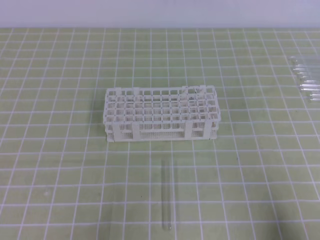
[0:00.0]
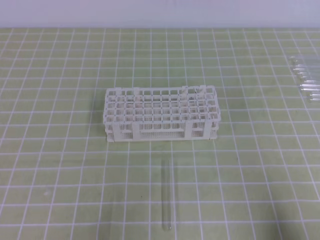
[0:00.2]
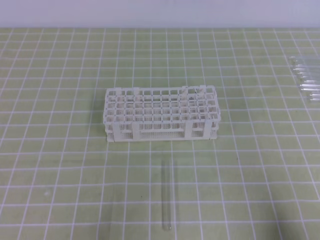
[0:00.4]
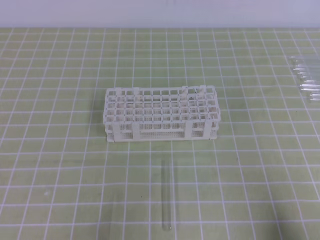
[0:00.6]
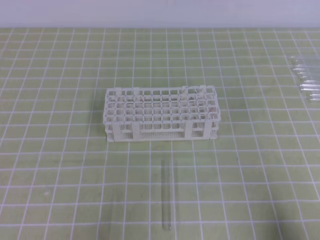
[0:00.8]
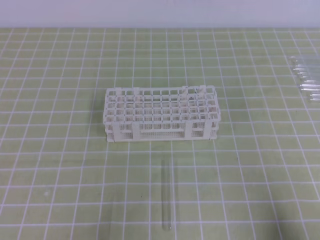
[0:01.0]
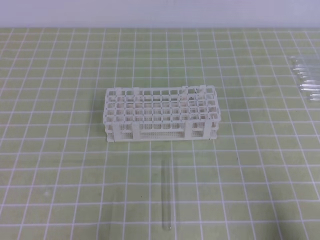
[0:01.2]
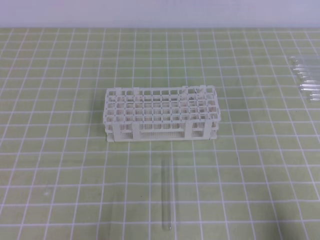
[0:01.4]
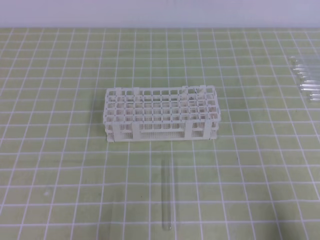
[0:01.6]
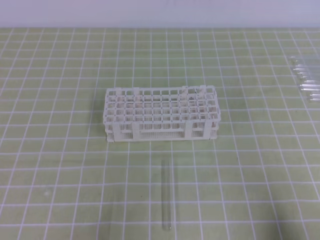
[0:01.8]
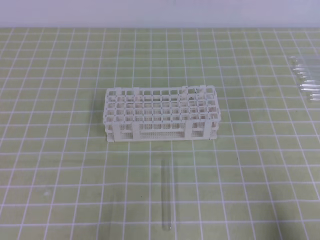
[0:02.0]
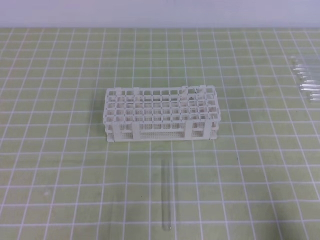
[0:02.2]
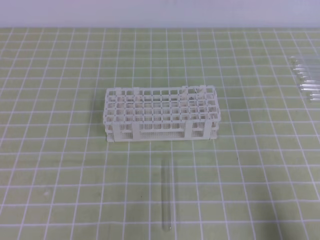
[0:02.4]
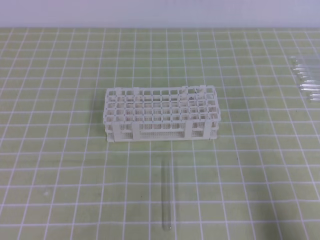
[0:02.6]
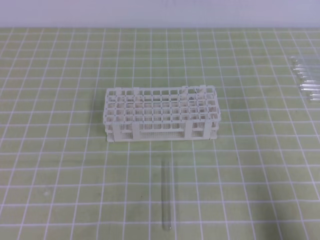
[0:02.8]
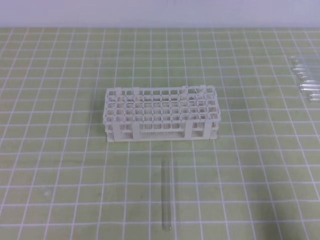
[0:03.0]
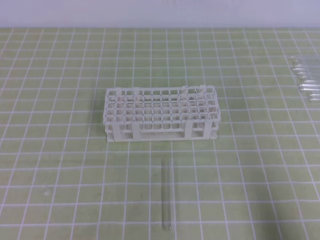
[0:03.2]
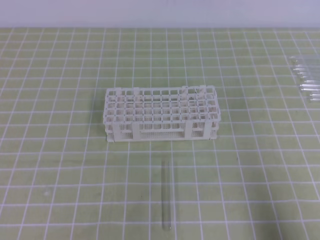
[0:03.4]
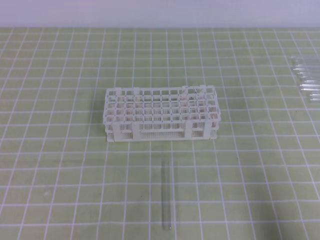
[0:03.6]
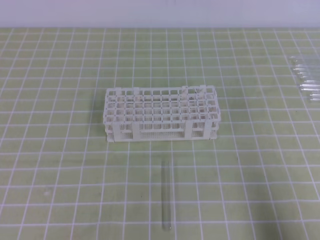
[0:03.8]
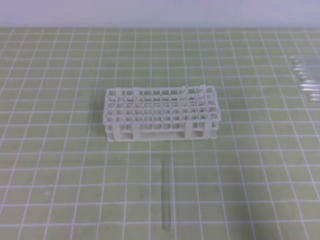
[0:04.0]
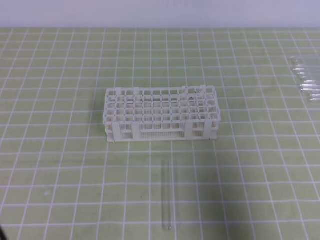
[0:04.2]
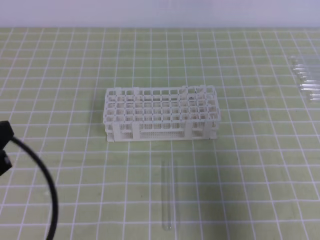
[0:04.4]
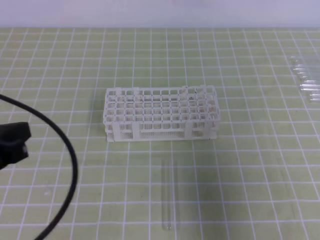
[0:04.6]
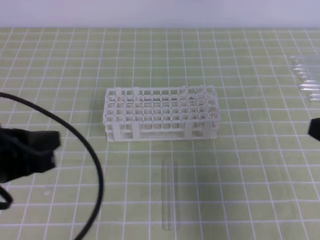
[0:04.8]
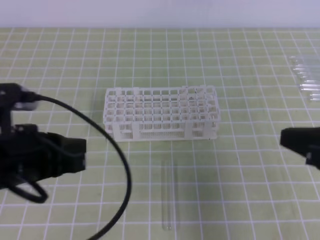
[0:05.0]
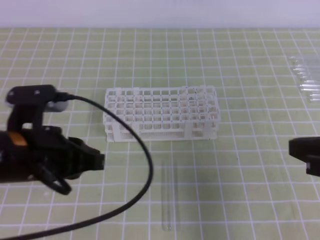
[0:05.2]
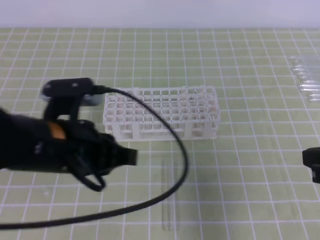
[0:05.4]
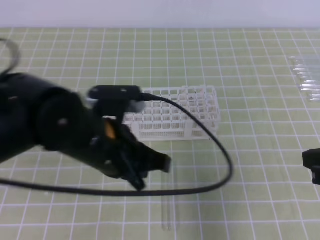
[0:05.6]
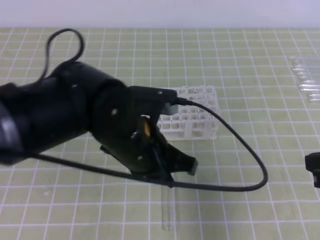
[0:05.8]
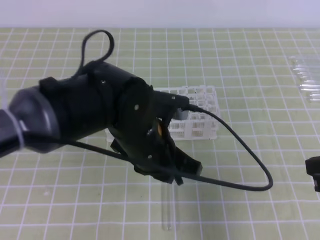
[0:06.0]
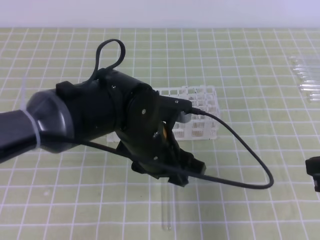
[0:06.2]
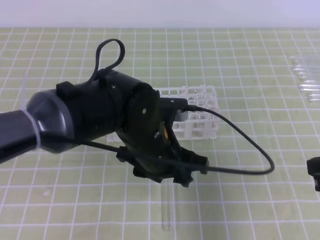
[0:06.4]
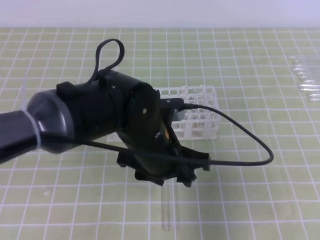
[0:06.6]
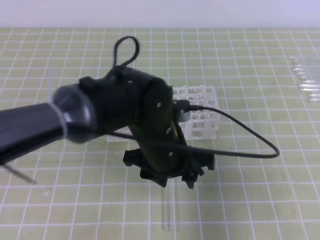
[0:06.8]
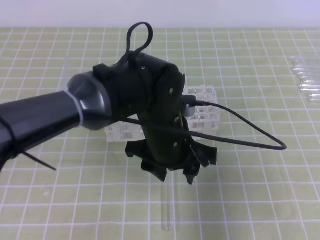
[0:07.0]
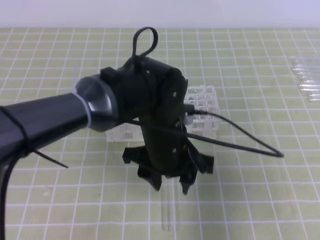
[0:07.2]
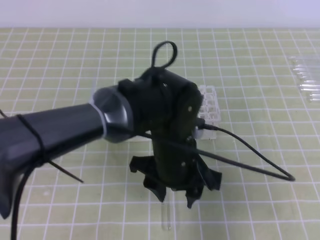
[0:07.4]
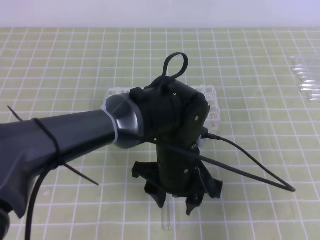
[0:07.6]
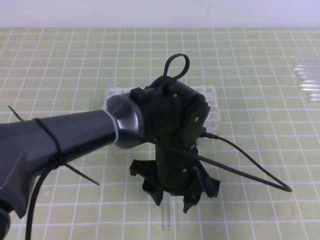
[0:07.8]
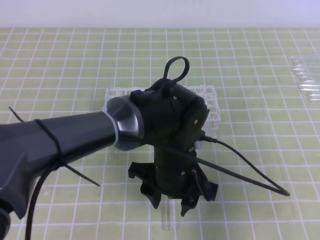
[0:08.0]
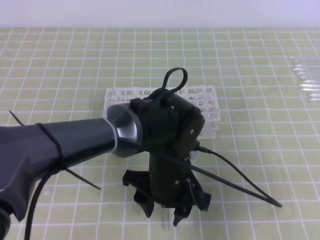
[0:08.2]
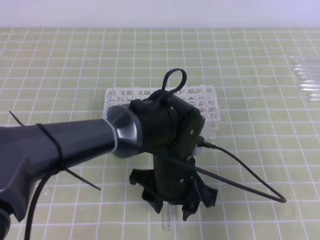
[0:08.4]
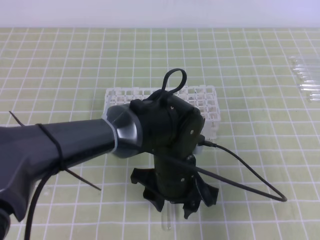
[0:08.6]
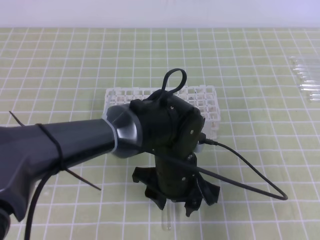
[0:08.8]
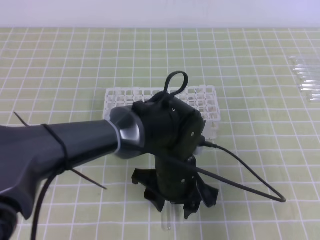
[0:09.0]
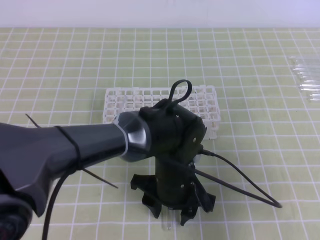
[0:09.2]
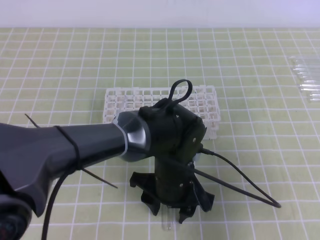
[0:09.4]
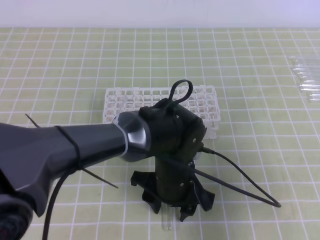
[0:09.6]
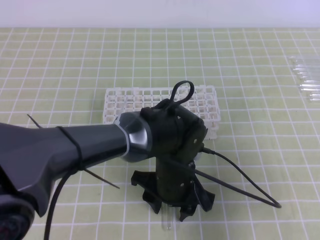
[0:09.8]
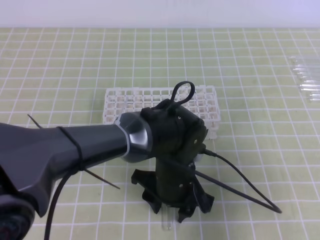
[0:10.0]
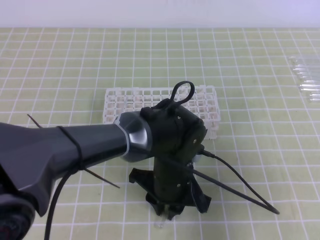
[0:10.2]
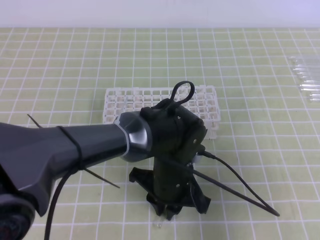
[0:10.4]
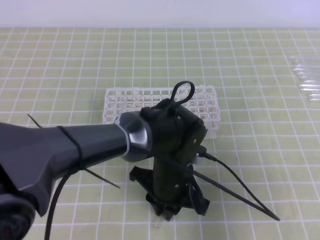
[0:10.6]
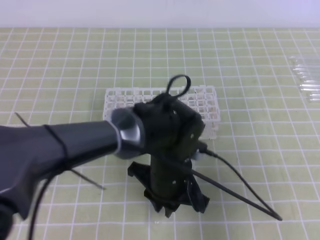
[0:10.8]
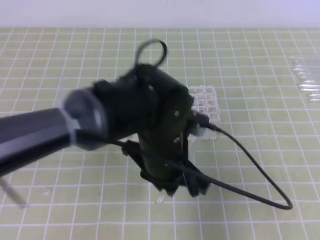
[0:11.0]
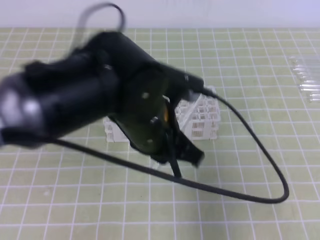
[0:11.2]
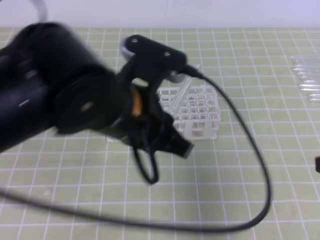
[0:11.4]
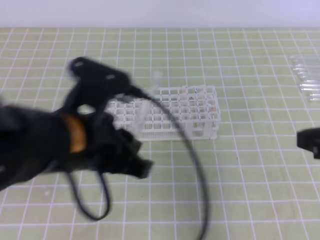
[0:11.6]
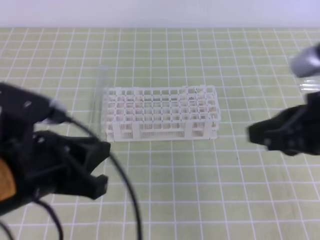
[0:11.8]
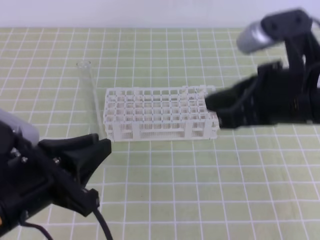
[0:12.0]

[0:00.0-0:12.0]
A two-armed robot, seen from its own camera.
0:00.0 to 0:01.6: The two grippers keep their place.
0:03.0 to 0:04.4: The left gripper goes about 10 cm upward and forward; the right gripper heads upward, covering some 10 cm.
0:04.4 to 0:06.0: The left gripper goes some 25 cm to the right and forward, and opens up; the right gripper goes roughly 5 cm forward.
0:06.0 to 0:07.6: The left gripper shifts by some 5 cm, and opens its fingers.
0:07.6 to 0:09.0: There are only small adjustments of the grippers.
0:09.0 to 0:10.4: The left gripper closes.
0:10.4 to 0:12.0: The left gripper heads to the left, upward and backward, covering some 25 cm; the right gripper heads to the left and upward, covering approximately 15 cm.

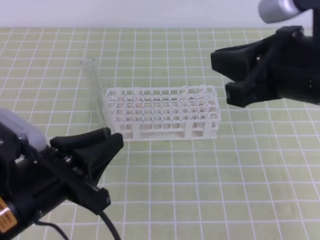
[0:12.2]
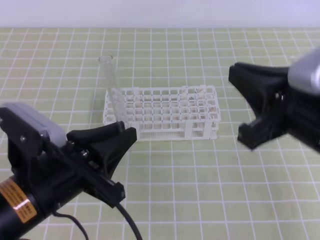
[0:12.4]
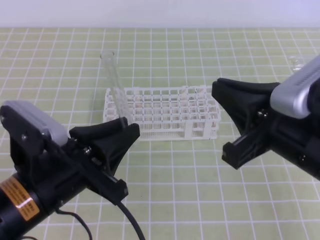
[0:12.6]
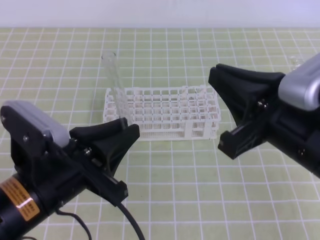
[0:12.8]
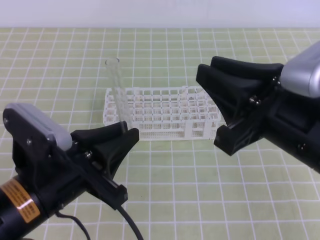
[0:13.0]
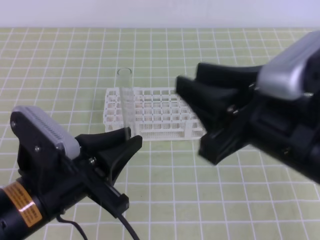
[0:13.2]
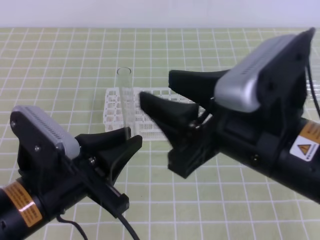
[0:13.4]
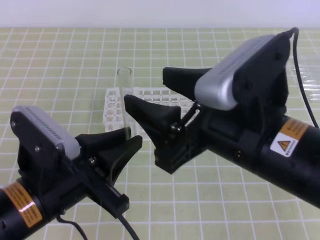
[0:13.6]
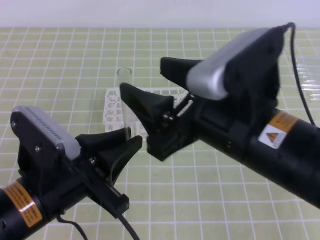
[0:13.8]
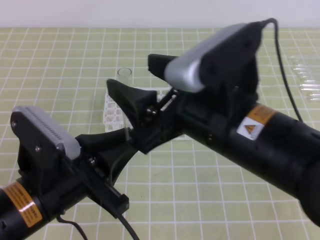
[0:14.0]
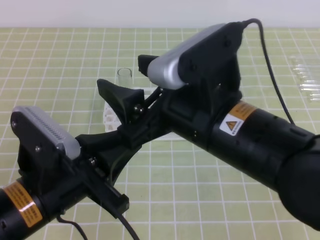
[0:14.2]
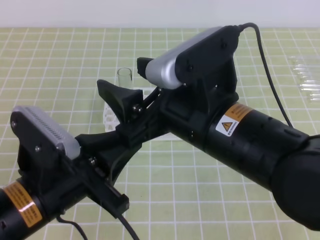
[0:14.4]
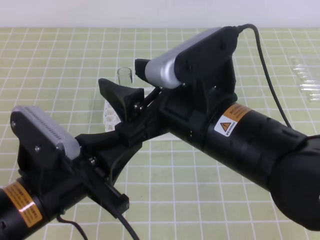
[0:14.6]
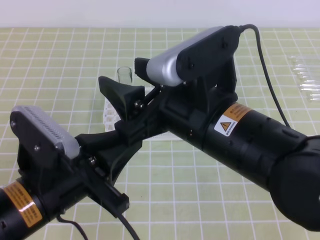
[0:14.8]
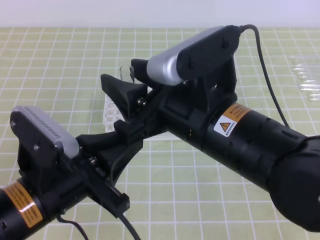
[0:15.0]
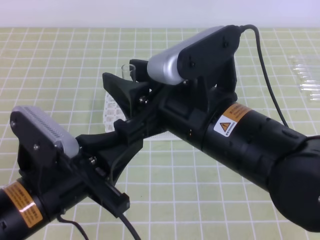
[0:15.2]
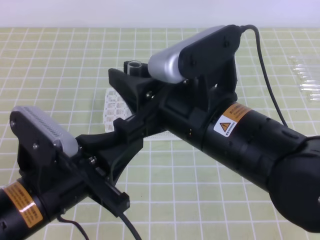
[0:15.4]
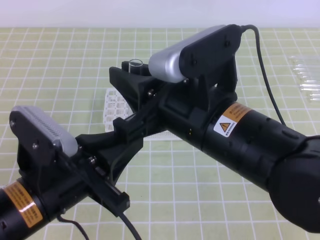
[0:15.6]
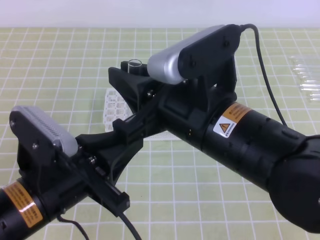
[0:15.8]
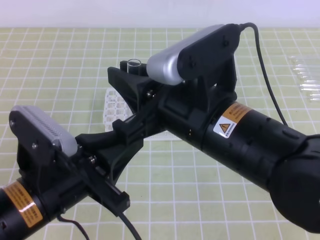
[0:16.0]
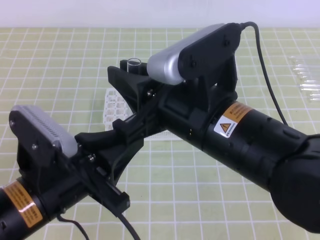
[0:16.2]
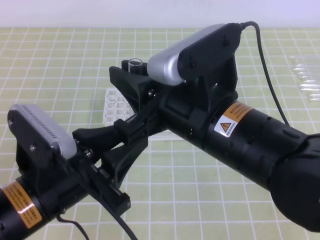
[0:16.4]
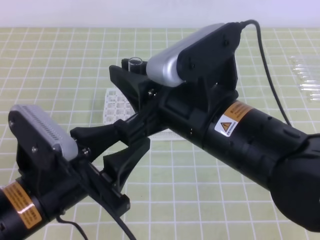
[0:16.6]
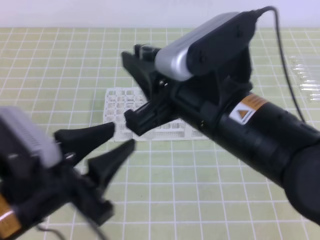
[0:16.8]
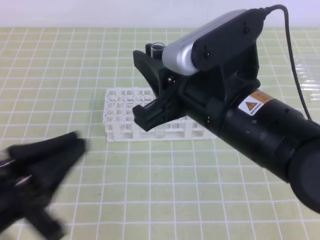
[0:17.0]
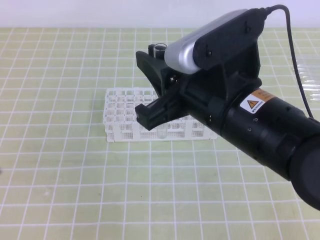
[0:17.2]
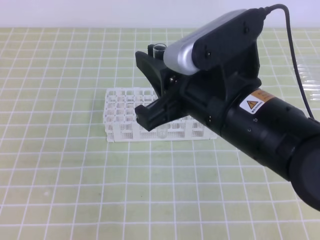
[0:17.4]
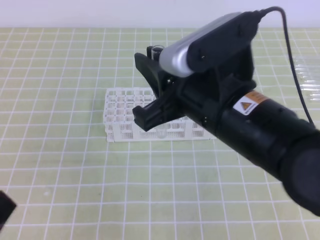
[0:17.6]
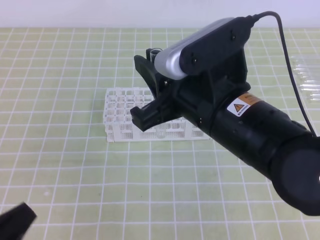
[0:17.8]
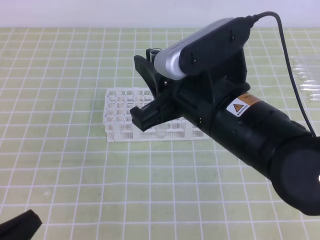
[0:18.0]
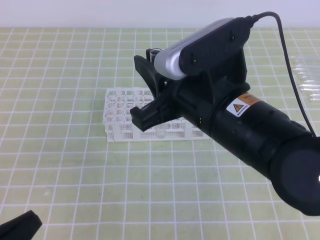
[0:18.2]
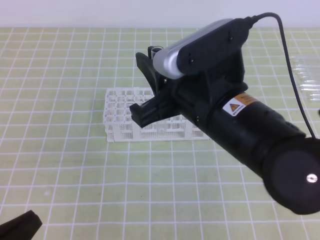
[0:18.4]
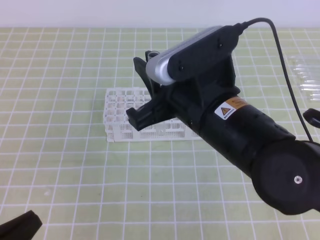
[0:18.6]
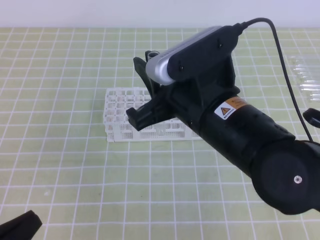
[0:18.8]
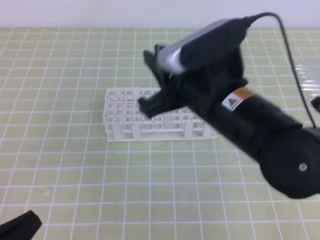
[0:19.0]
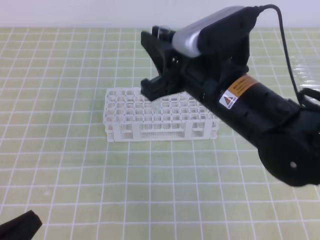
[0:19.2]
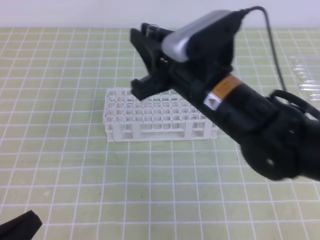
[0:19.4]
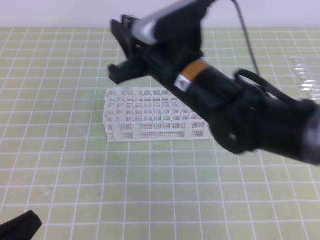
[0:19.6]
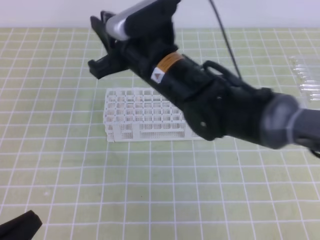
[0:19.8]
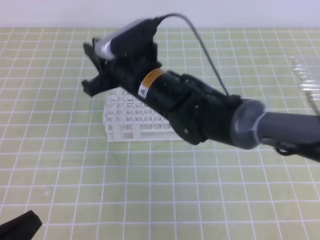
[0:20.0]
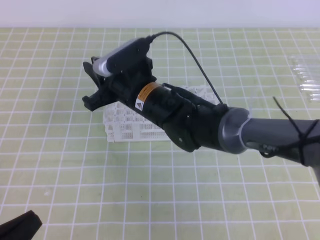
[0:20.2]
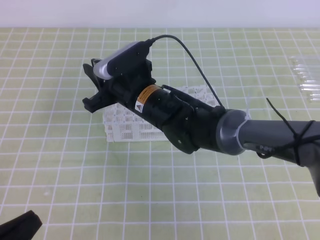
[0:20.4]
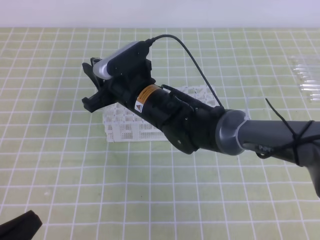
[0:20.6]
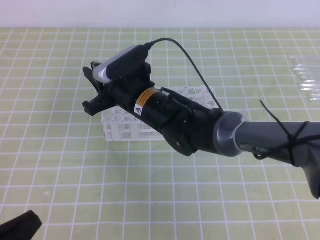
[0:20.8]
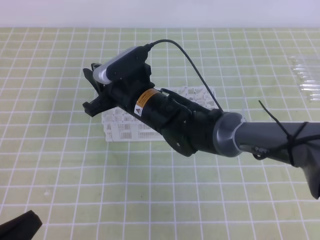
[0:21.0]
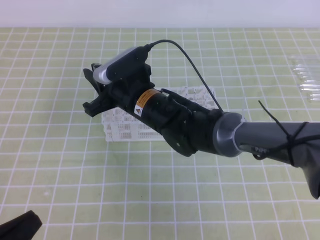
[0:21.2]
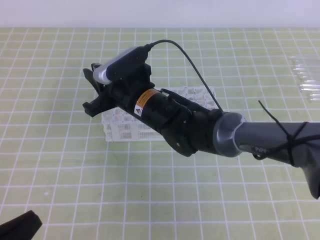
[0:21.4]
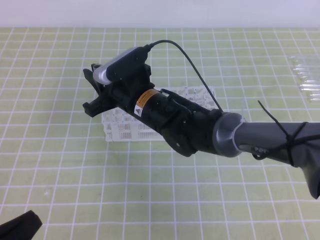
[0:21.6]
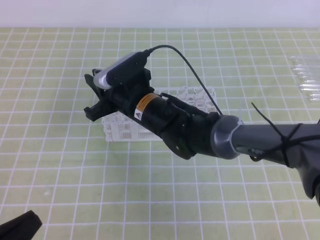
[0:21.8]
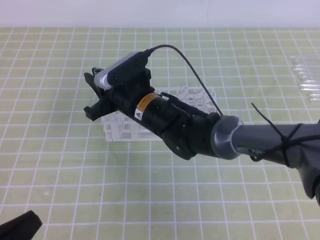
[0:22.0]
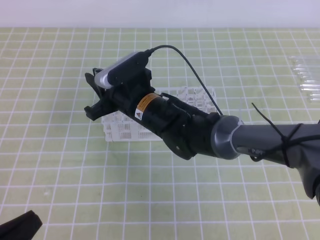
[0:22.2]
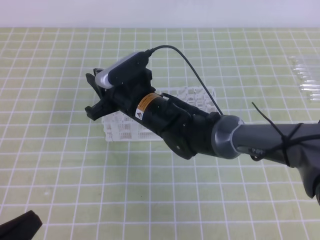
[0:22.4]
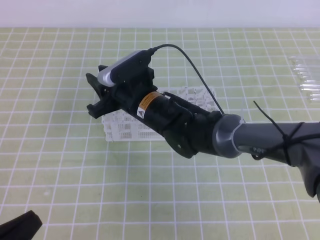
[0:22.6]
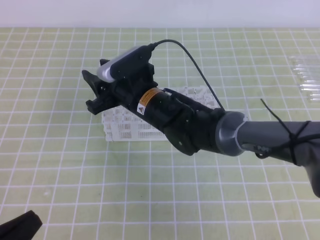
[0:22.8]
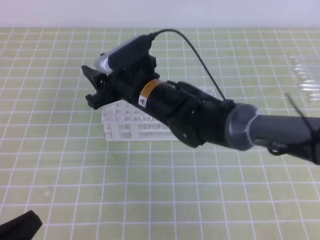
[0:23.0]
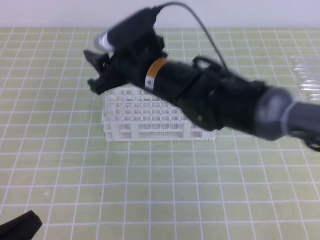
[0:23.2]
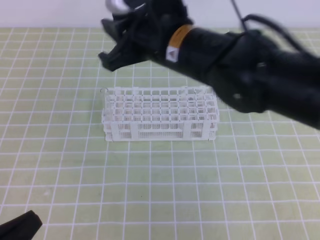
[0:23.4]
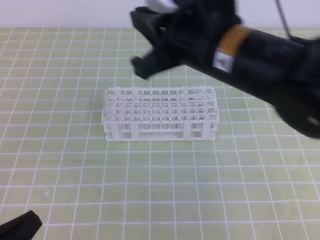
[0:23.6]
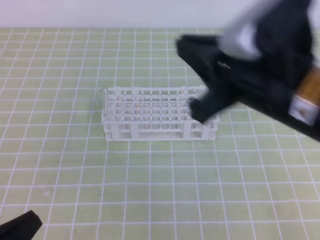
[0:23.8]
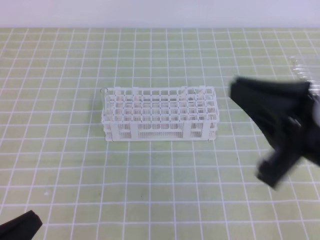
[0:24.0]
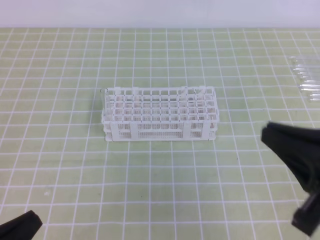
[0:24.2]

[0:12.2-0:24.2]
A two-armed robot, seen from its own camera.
0:12.2 to 0:13.8: The right gripper moves to the left, approximately 5 cm, and opens its fingers.
0:13.8 to 0:15.2: The right gripper closes up.
0:15.2 to 0:16.6: The left gripper opens. The right gripper closes.
0:16.6 to 0:18.2: The left gripper travels to the left, backward and downward by about 15 cm, and closes its fingers.
0:18.2 to 0:19.8: The right gripper is displaced forward and to the left by about 15 cm.
0:19.8 to 0:21.2: The right gripper travels downward by some 10 cm.
0:21.2 to 0:22.6: Both grippers stay about where they are.
0:22.6 to 0:24.2: The right gripper travels to the right, backward and upward by some 35 cm, and closes.
